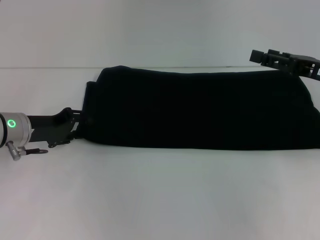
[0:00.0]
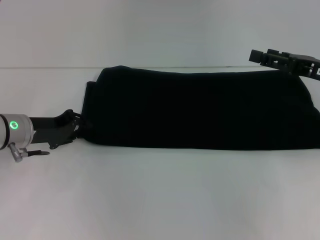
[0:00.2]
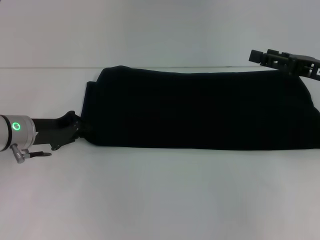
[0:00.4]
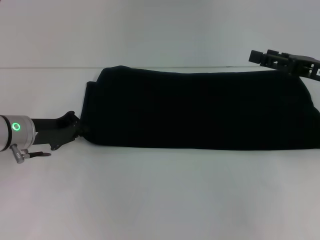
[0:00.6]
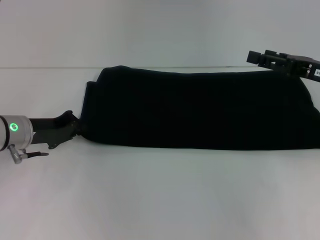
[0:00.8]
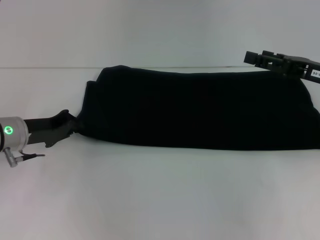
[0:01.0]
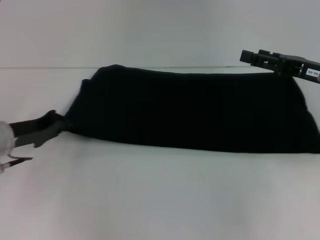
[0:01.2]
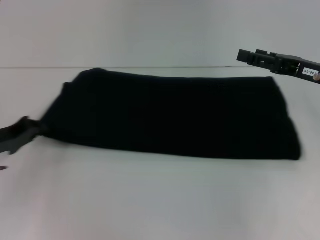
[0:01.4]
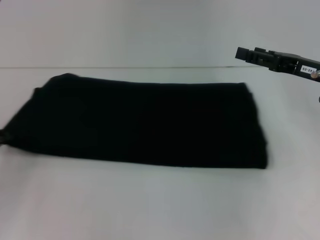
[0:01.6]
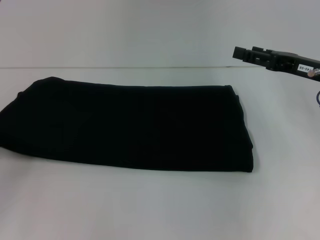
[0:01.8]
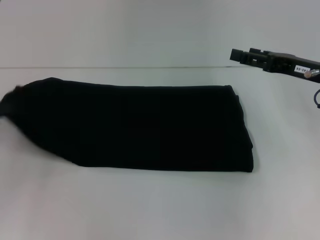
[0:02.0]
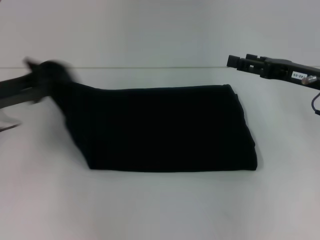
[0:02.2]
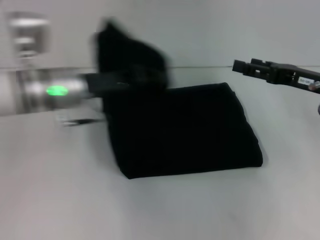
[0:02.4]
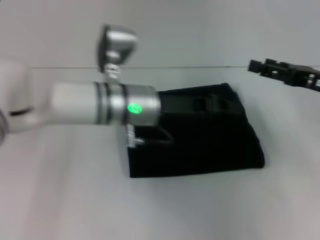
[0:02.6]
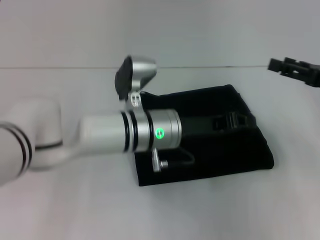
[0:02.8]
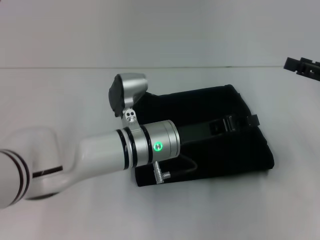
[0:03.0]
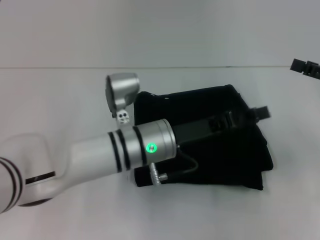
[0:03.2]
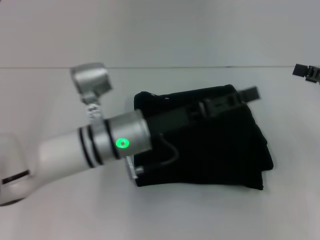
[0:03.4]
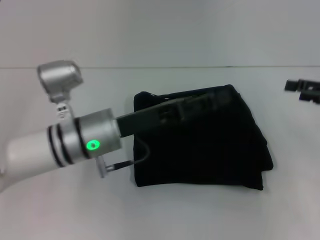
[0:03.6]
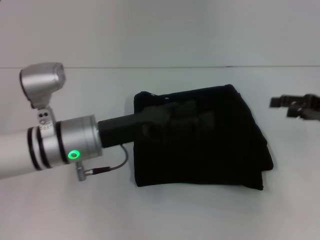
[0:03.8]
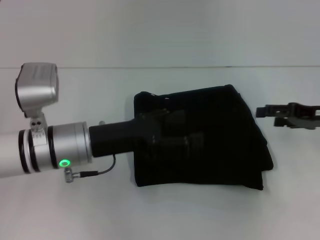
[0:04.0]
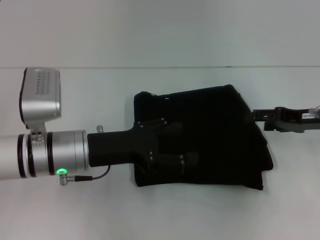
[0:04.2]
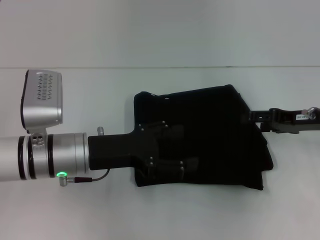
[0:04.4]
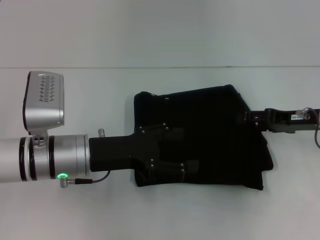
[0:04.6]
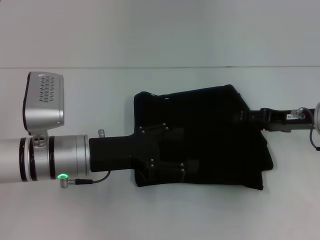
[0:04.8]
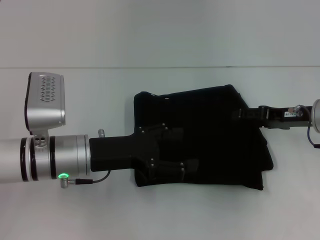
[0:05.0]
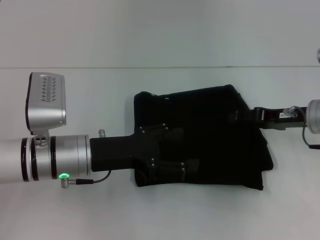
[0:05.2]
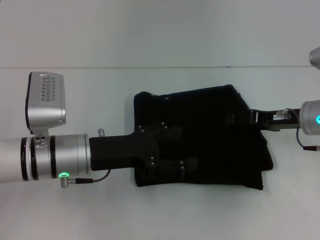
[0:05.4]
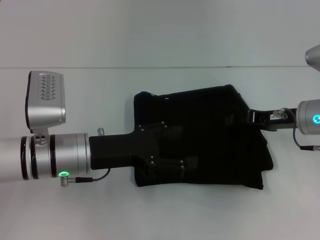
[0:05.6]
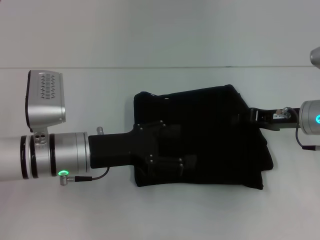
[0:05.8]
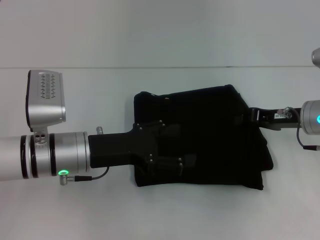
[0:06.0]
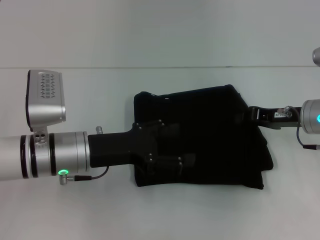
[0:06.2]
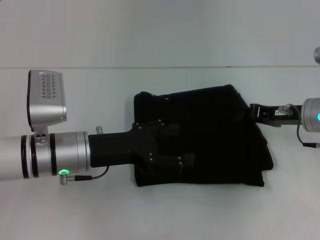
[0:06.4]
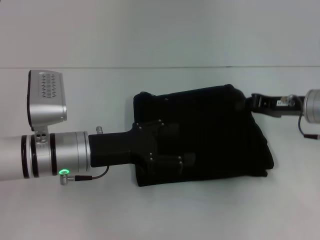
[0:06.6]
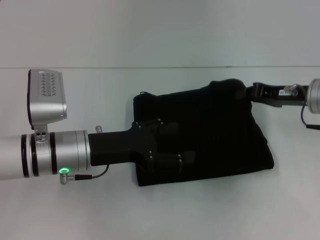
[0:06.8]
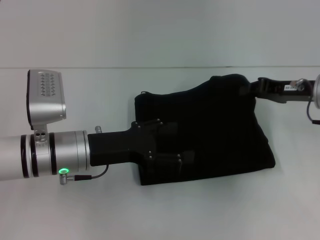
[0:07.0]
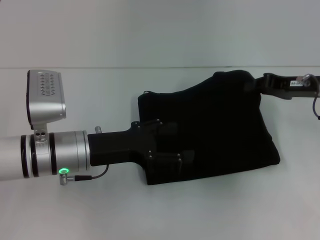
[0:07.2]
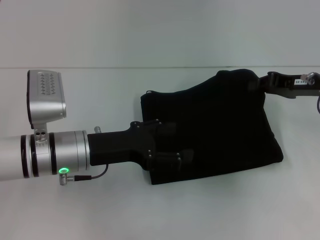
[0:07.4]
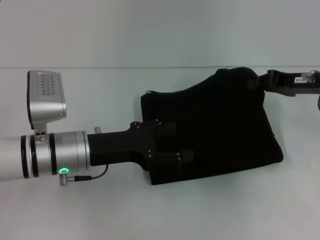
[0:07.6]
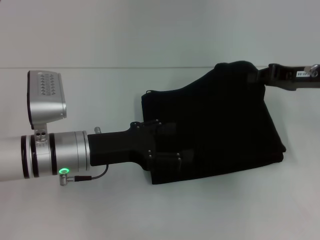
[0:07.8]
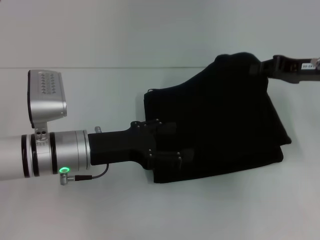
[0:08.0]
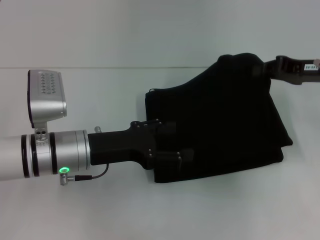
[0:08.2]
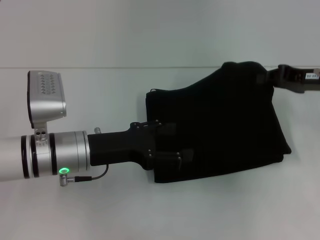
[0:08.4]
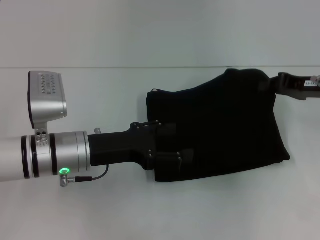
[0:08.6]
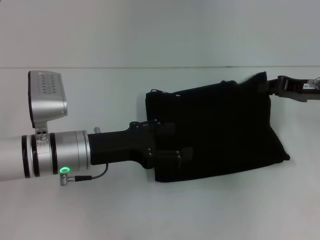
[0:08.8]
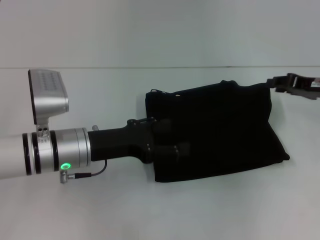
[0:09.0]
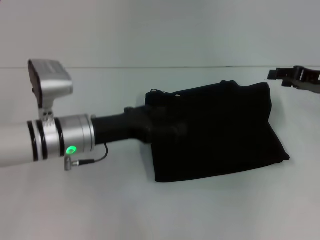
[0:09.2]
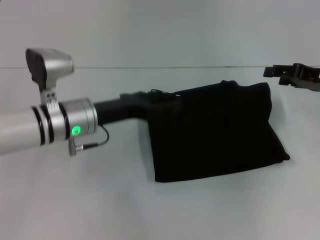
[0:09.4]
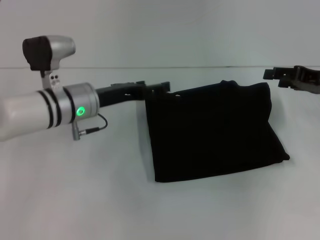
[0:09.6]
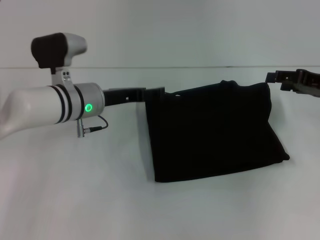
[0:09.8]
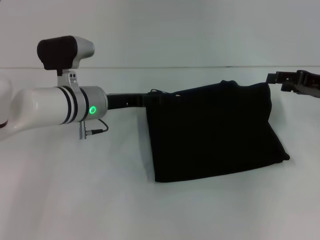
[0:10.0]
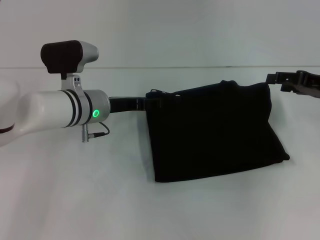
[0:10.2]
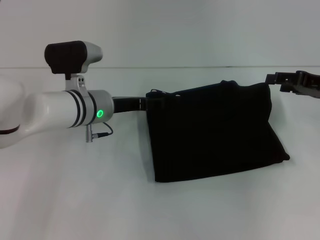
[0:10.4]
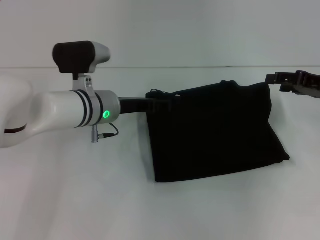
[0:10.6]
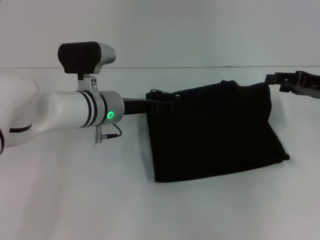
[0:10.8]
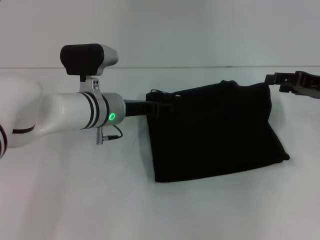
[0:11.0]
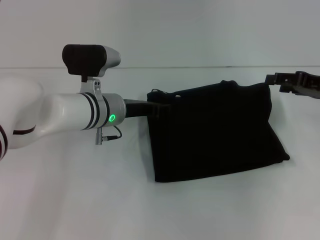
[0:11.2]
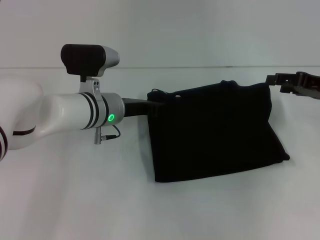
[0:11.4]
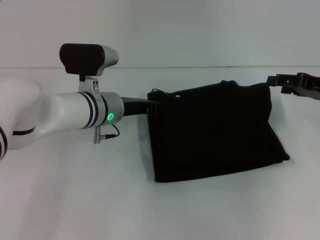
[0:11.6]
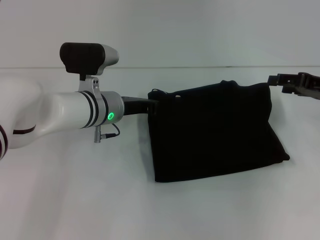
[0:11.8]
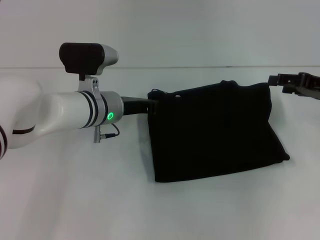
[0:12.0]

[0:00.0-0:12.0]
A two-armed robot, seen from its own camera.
Step, 0:00.0 to 0:03.4: Fold the clothes with your left hand.
0:00.0 to 0:01.6: The left gripper travels to the left and backward by roughly 15 cm, and closes its fingers.
0:01.6 to 0:03.0: The left gripper shifts some 35 cm to the right, while the right gripper shifts roughly 5 cm to the right.
0:03.0 to 0:04.4: The left gripper travels to the left by approximately 10 cm, and opens, while the right gripper goes roughly 5 cm to the left.
0:04.4 to 0:06.0: The right gripper closes.
0:06.0 to 0:07.6: The right gripper shifts about 5 cm upward.
0:07.6 to 0:09.0: The grippers make only small movements.
0:09.0 to 0:10.4: The right gripper opens its fingers; the left gripper is displaced forward by some 10 cm.
0:10.4 to 0:12.0: The left gripper closes its fingers.

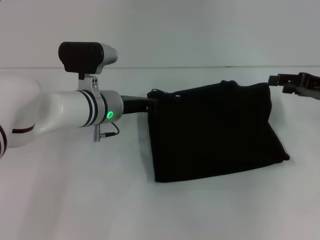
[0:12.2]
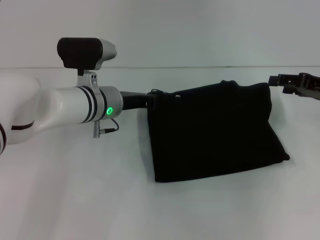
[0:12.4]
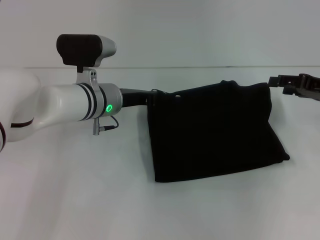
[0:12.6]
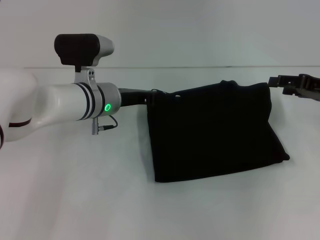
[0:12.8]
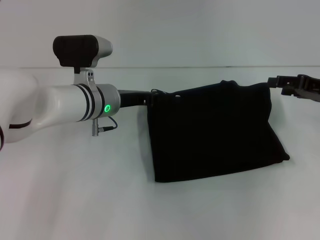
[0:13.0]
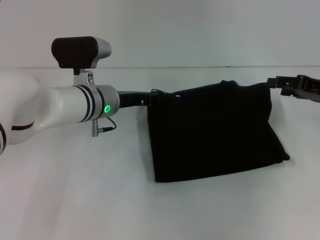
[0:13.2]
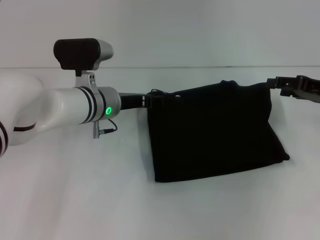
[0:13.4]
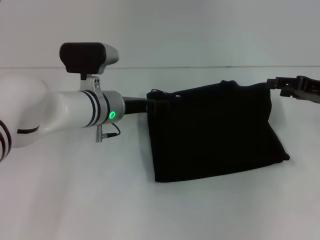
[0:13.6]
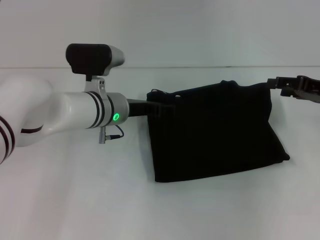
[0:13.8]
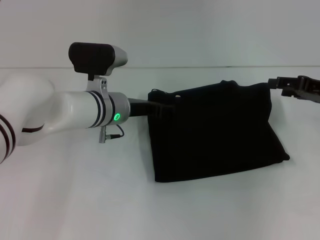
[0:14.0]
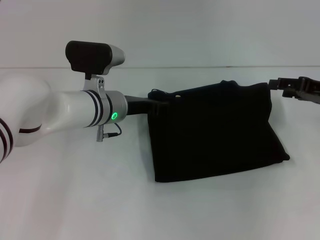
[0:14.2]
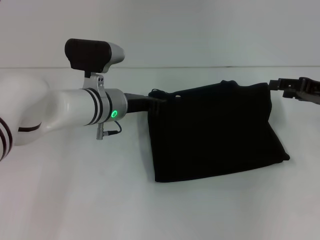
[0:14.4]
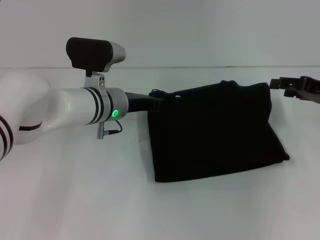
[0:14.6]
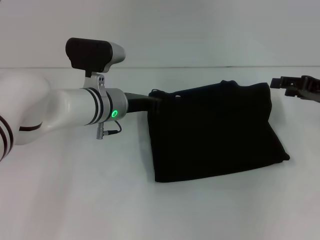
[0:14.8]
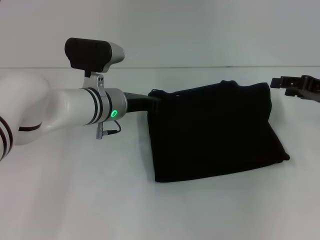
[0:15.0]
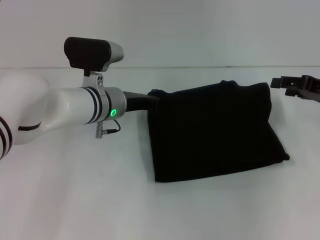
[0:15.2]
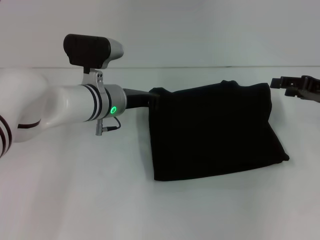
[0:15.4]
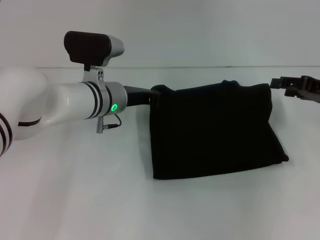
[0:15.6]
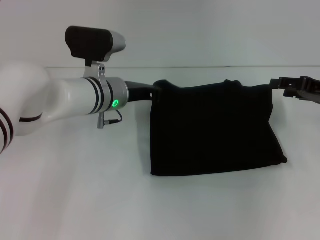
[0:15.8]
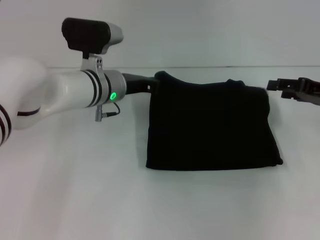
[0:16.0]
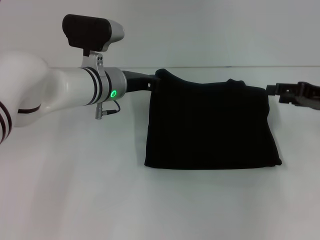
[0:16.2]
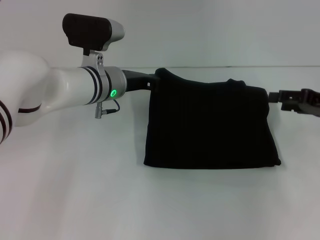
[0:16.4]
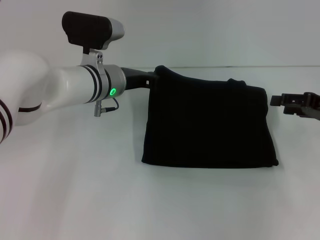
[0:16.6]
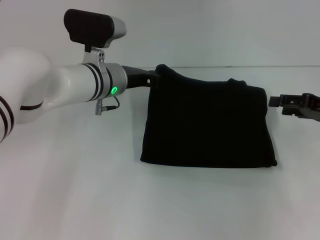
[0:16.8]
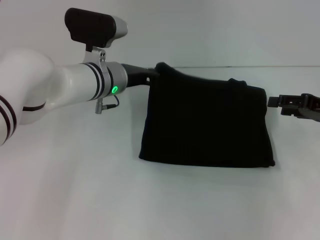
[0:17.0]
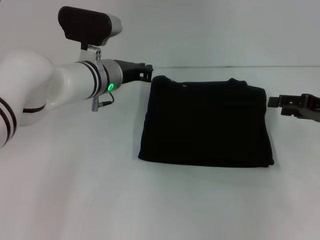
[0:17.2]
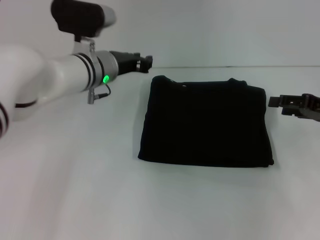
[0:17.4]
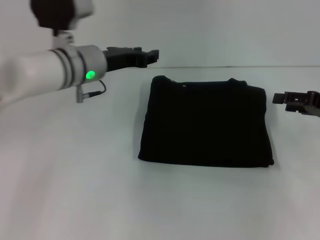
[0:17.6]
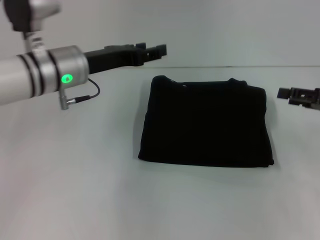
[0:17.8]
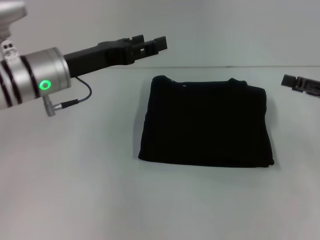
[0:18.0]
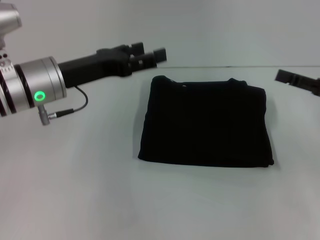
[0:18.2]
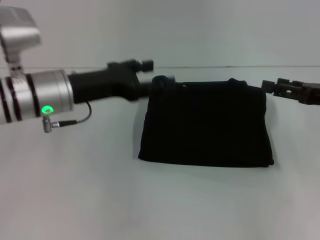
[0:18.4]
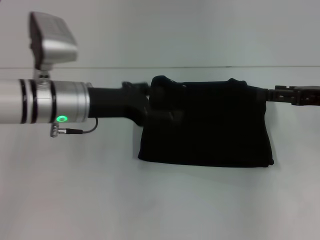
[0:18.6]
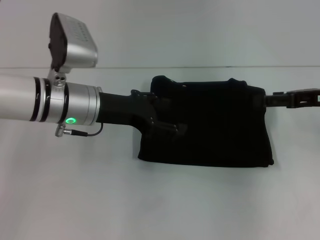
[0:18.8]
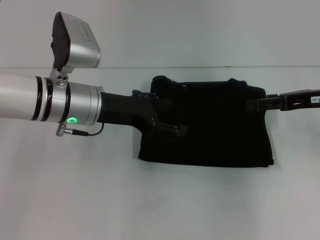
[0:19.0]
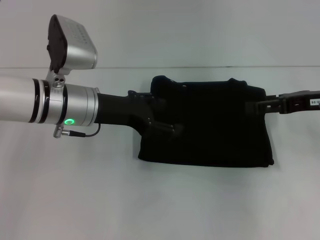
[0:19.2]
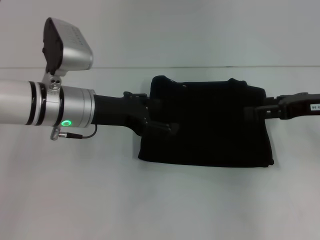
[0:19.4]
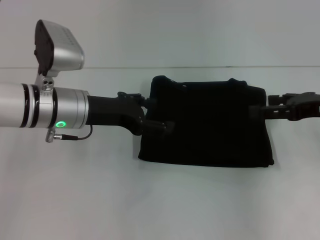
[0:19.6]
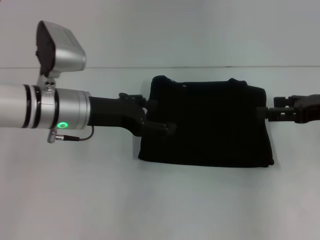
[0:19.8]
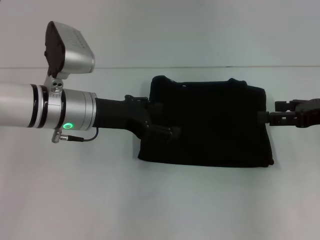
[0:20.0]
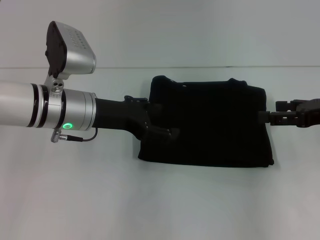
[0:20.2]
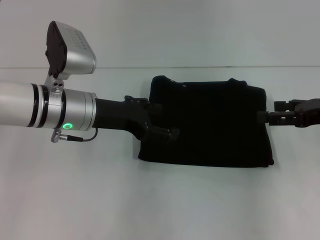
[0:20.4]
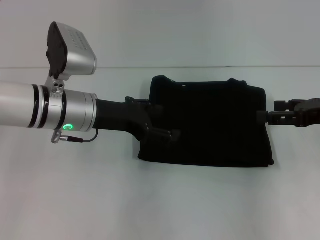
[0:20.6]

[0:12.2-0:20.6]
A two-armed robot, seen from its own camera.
0:12.2 to 0:13.6: The left gripper opens.
0:13.6 to 0:15.0: The left gripper closes.
0:15.0 to 0:16.4: The grippers stay close to where they were, moving slightly.
0:16.4 to 0:17.8: The left gripper is displaced to the left and upward by approximately 10 cm, and opens up.
0:17.8 to 0:19.2: The right gripper shifts about 5 cm to the left. Meanwhile the left gripper opens its fingers.
0:19.2 to 0:20.6: The grippers move only a little.

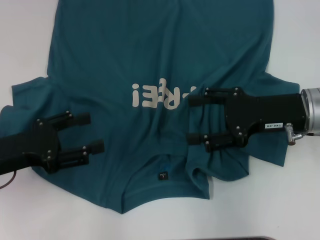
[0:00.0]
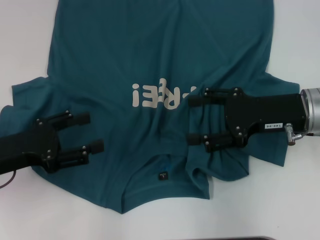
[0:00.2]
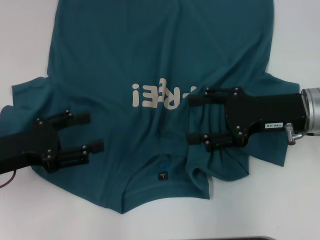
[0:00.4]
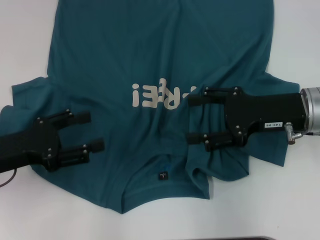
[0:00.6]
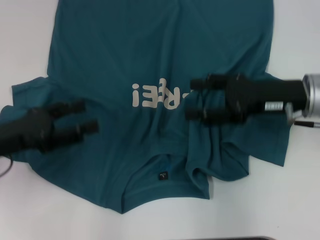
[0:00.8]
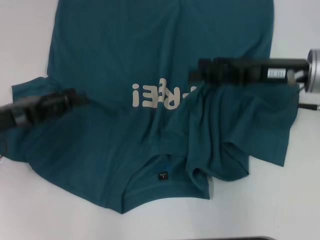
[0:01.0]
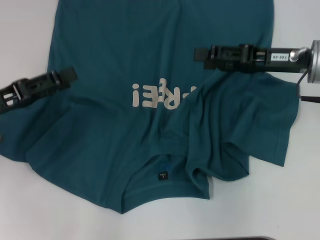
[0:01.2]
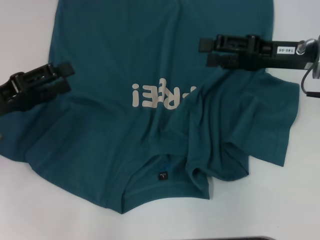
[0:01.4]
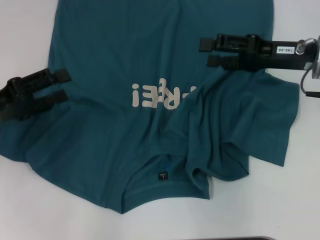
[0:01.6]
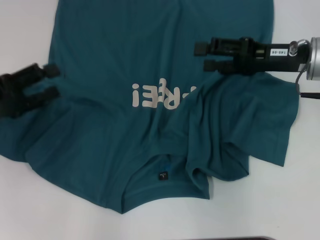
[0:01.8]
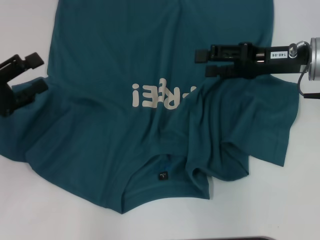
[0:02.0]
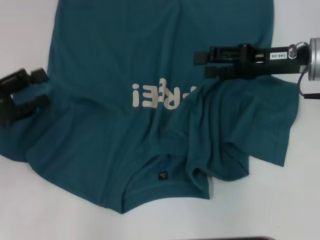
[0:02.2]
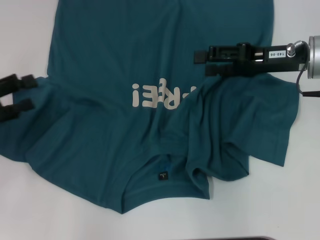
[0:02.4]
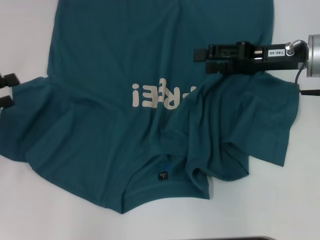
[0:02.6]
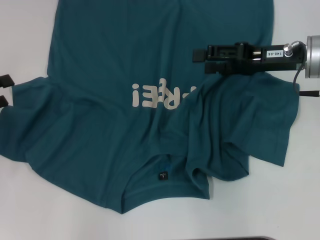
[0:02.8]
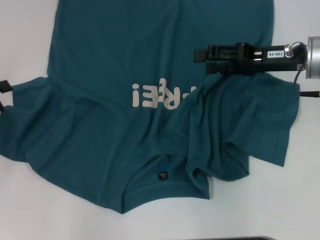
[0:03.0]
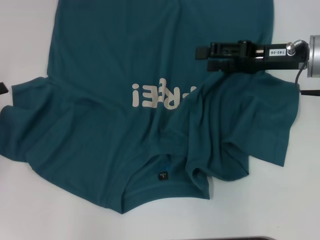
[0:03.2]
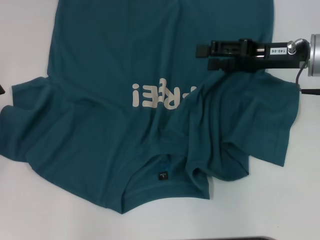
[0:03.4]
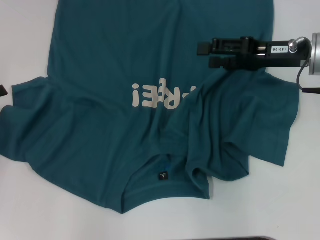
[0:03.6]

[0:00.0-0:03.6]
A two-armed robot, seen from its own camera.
0:00.0 to 0:01.8: The left gripper ends up about 5 cm from where it was. The right gripper moves forward, some 5 cm.
0:01.8 to 0:03.6: The left gripper travels to the left by approximately 5 cm.